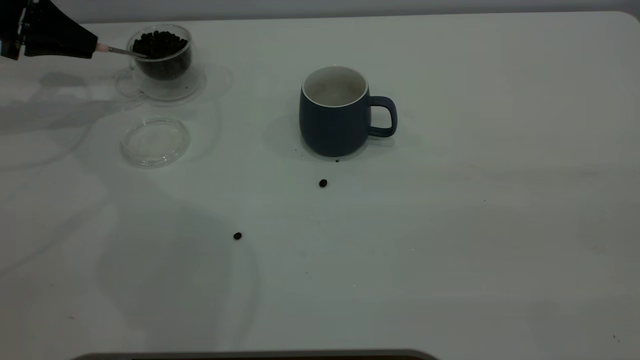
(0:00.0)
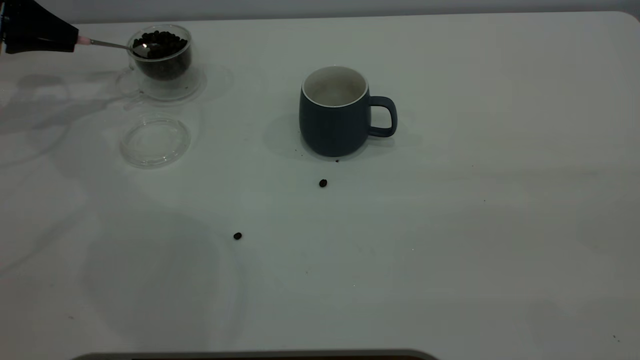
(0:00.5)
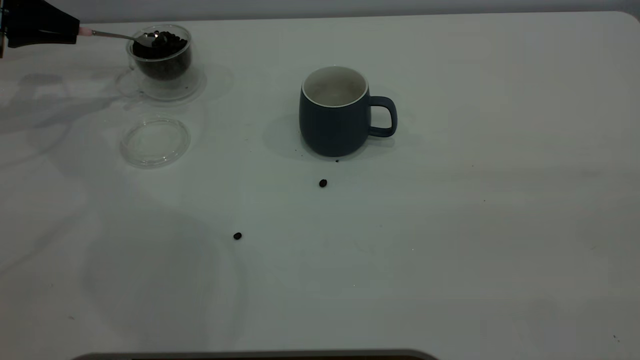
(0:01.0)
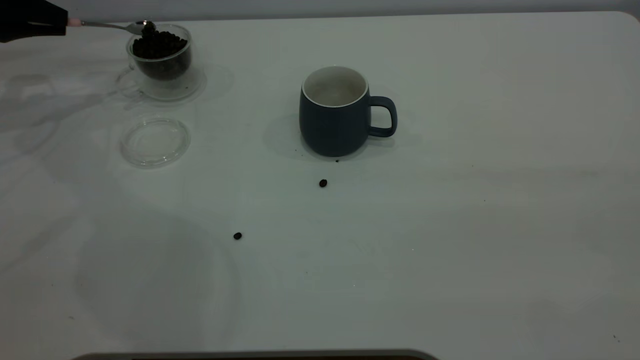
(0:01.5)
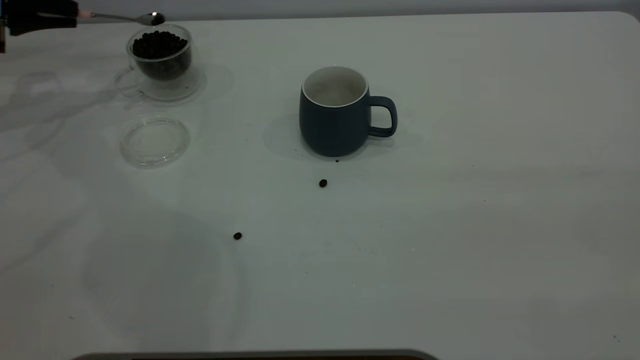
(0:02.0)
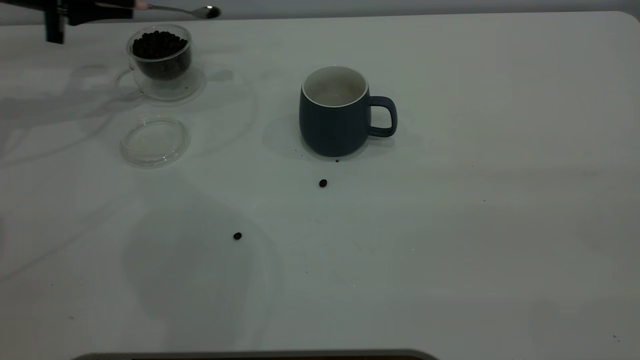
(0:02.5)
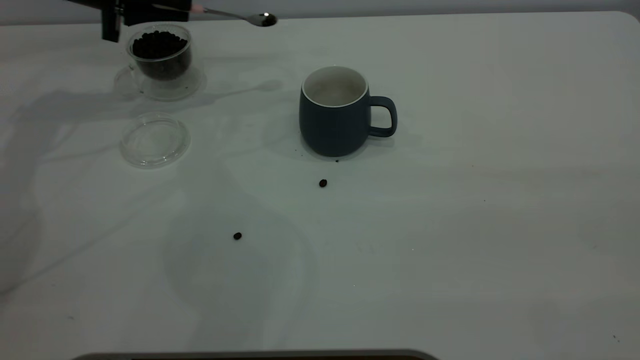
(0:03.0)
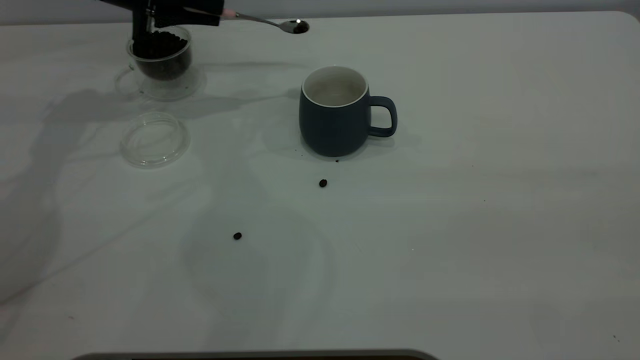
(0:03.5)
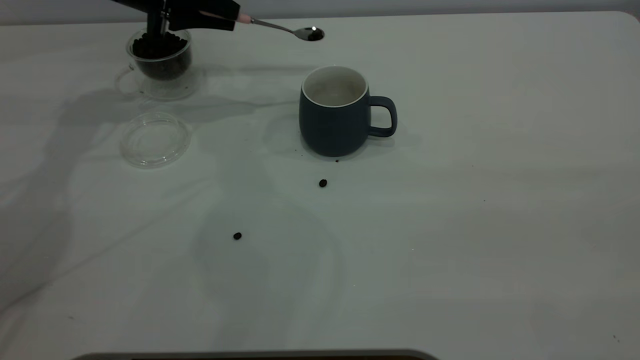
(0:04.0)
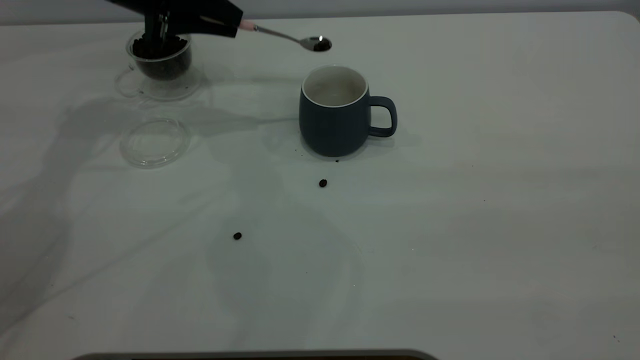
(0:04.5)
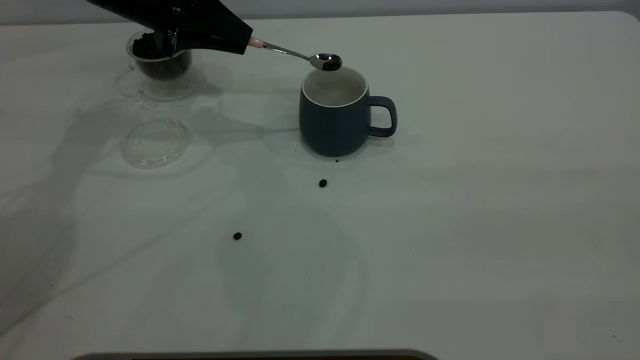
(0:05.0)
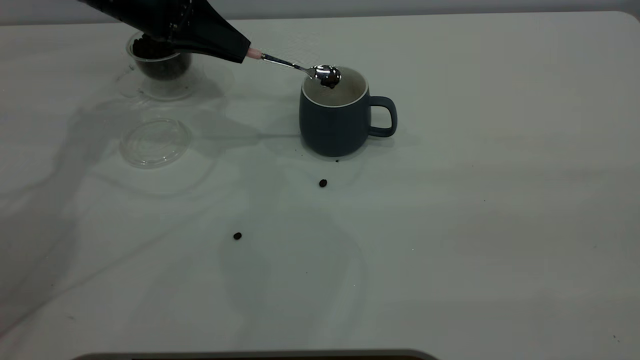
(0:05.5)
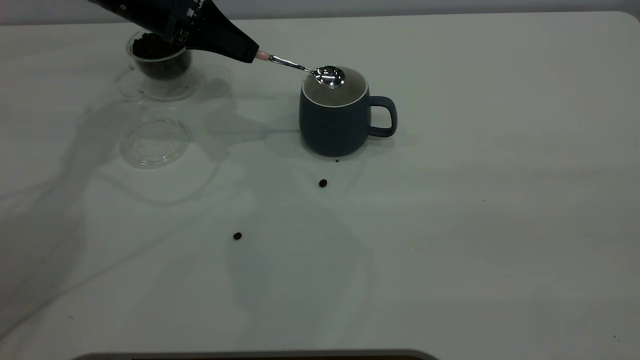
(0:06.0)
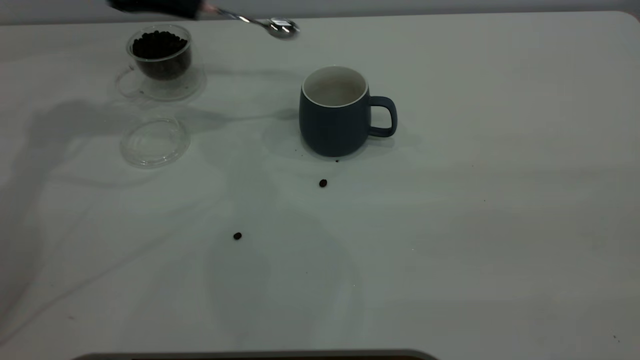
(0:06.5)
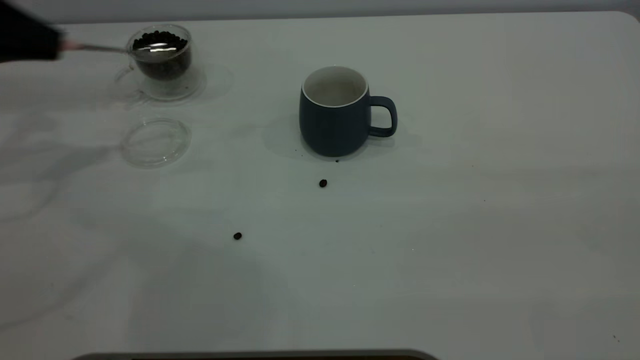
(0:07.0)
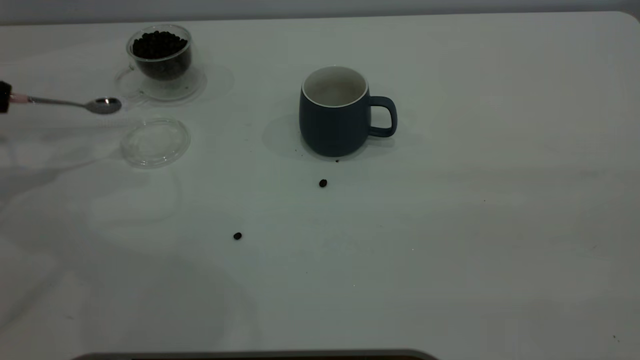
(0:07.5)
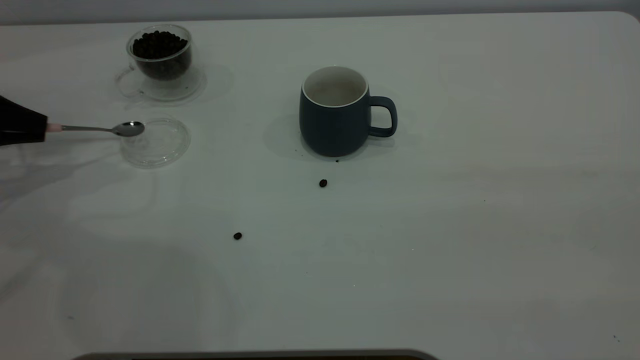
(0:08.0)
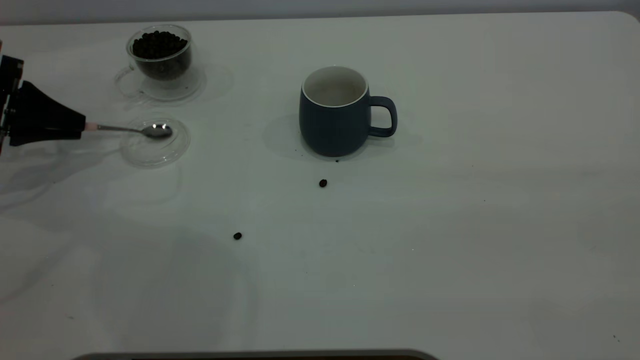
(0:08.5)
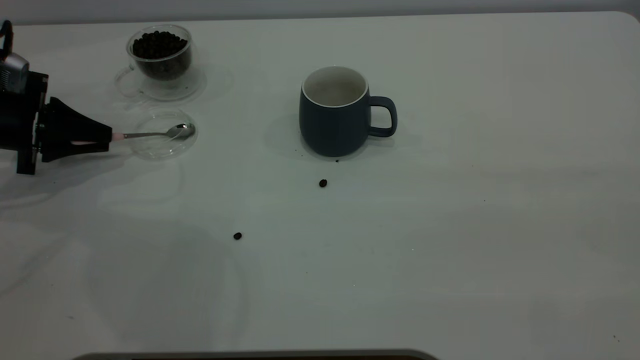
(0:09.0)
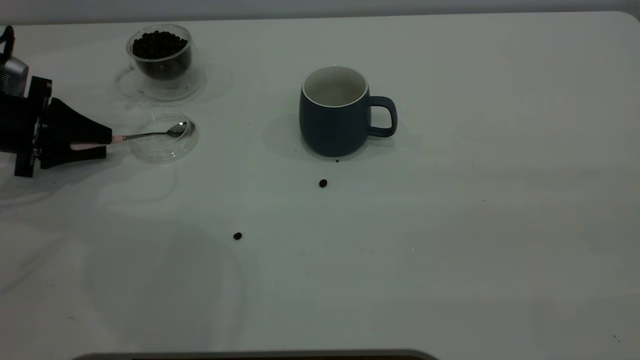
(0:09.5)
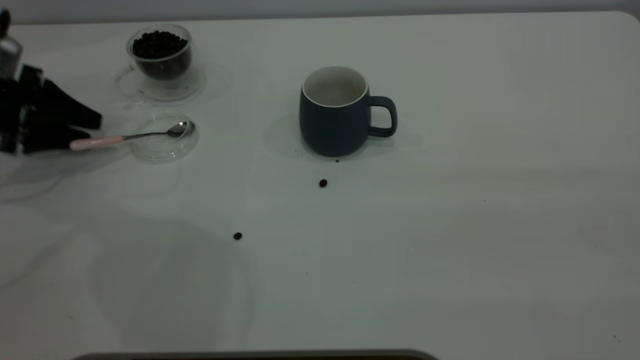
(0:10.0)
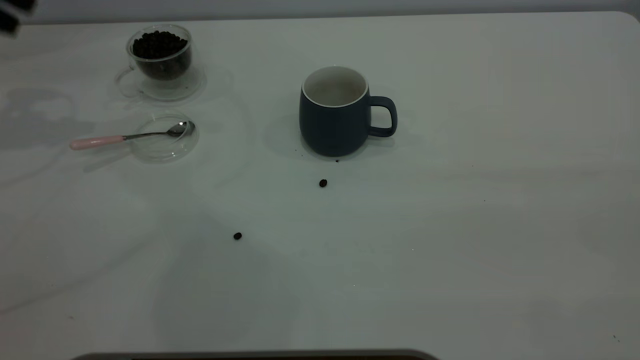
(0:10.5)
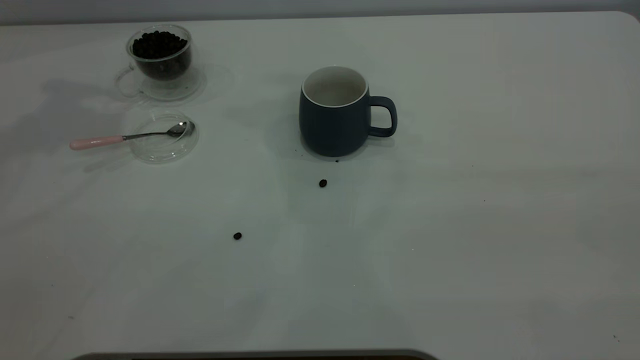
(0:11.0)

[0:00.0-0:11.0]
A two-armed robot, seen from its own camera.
Task of the whole recording: the right gripper place the grey cup in the center of the table, the left gripper take the pink spoon from the cup lid and scoop out the coffee beans from the coffee cup and put them into the grey cup, the left gripper put the spoon back into the cup lid.
Step, 0:00.0 to 0:06.0: Scoop a spoonful of beans into the cup.
Step, 0:06.5 to 0:10.0: Place the spoon back in its original place.
0:02.0 to 0:03.5: The left gripper shifts some 15 cm to the right.
0:03.5 to 0:05.5: The left gripper changes place by about 5 cm.
0:05.5 to 0:07.5: The left gripper heads to the left and backward, covering approximately 25 cm.
0:07.5 to 0:09.0: The left gripper shifts some 10 cm downward and to the right.
0:09.0 to 0:11.0: The left gripper travels upward by approximately 40 cm, and opens.

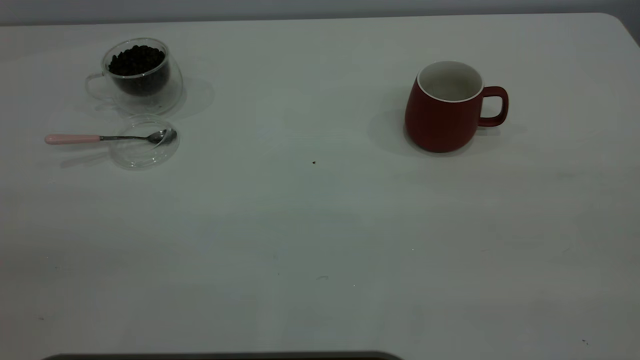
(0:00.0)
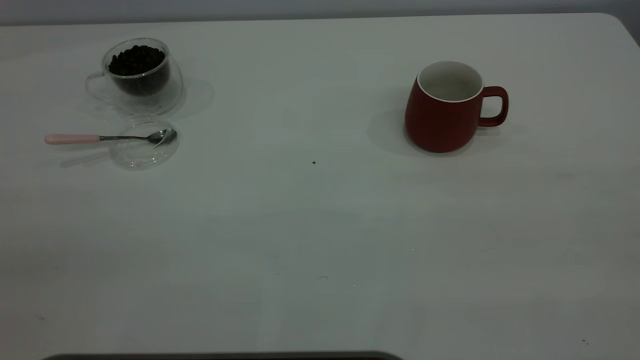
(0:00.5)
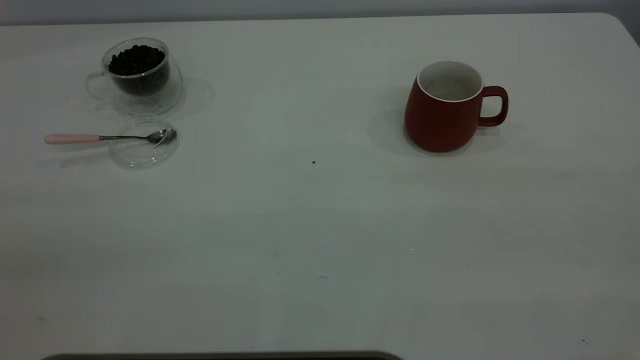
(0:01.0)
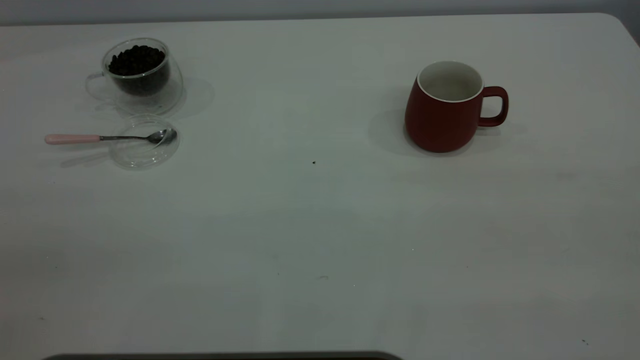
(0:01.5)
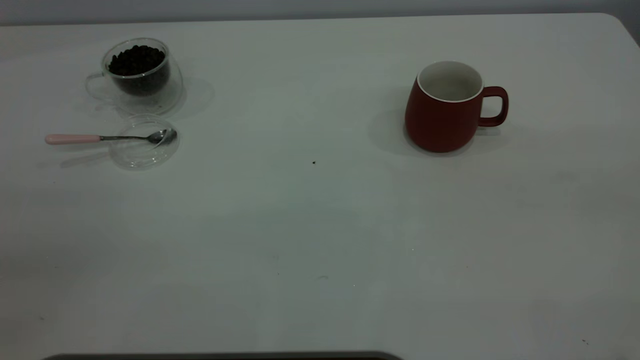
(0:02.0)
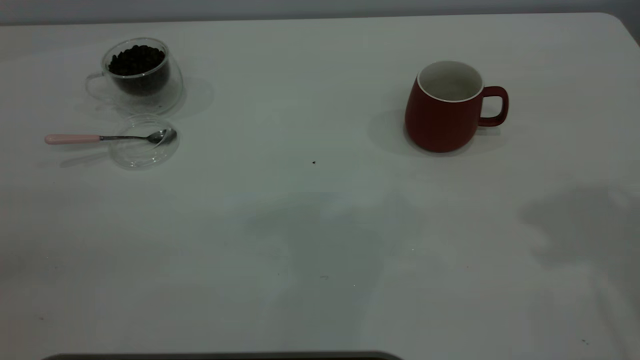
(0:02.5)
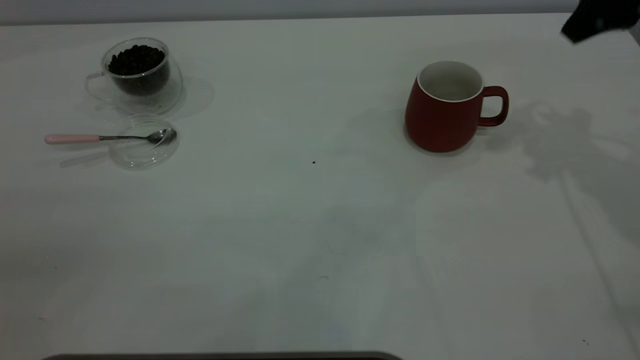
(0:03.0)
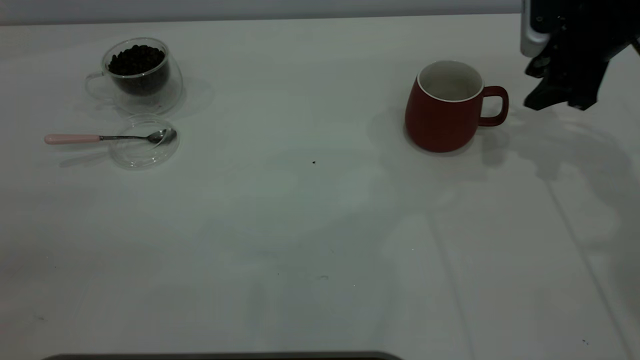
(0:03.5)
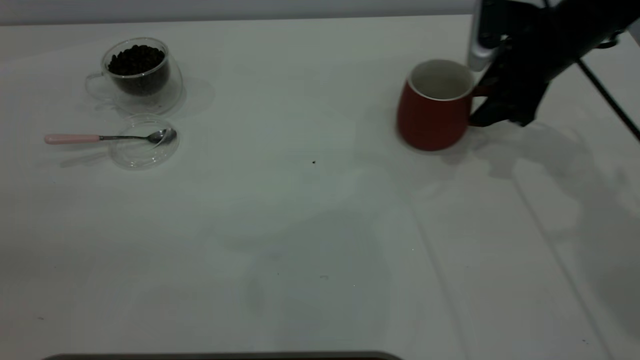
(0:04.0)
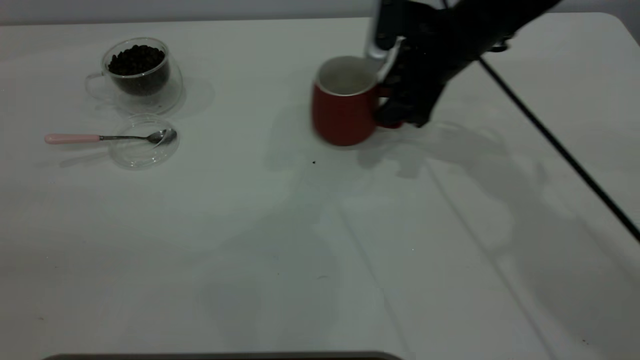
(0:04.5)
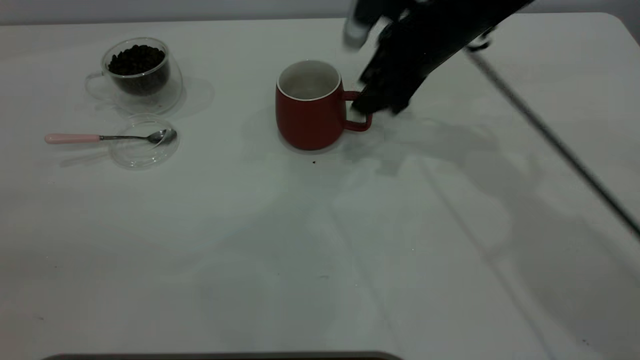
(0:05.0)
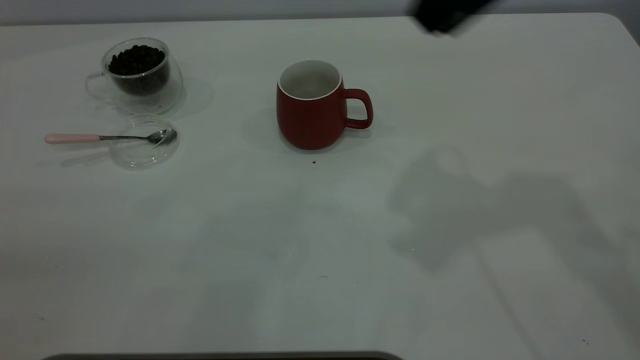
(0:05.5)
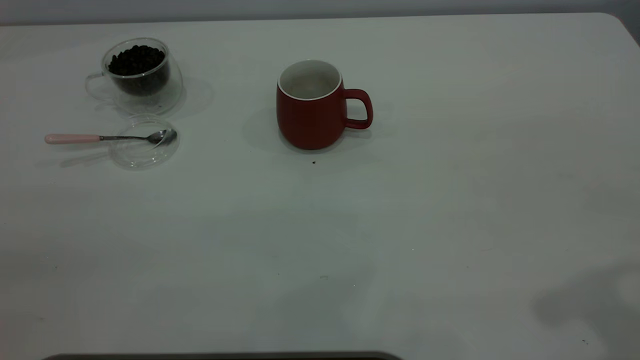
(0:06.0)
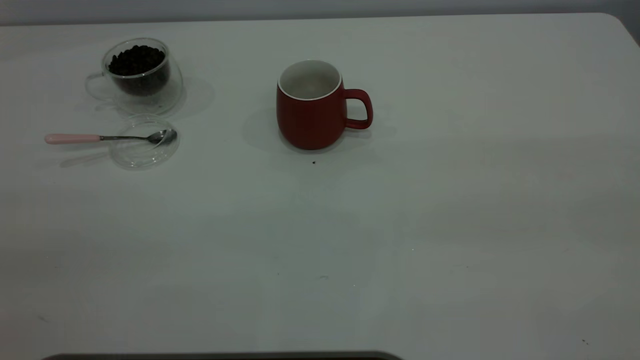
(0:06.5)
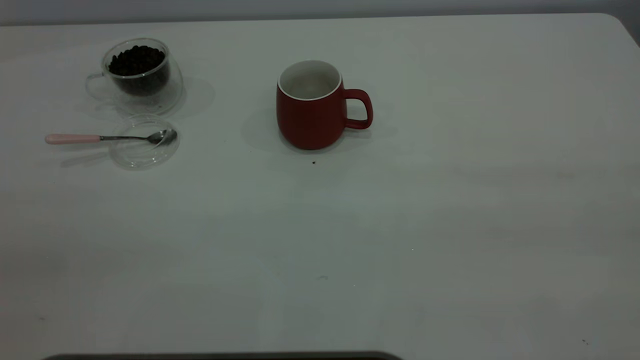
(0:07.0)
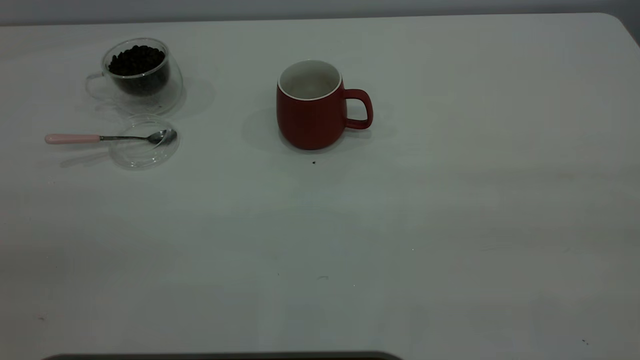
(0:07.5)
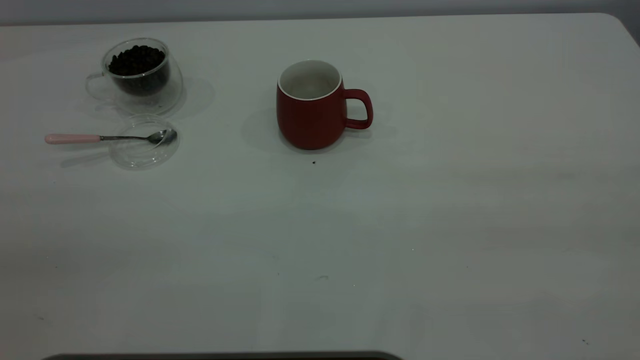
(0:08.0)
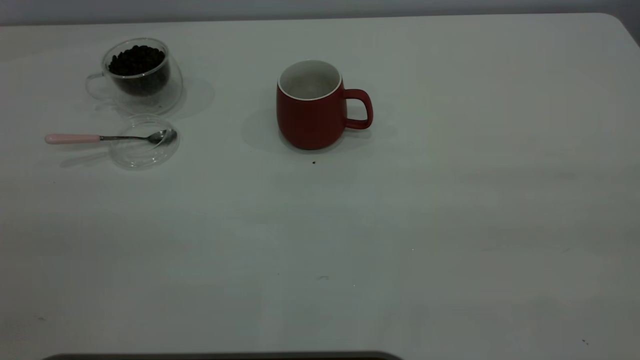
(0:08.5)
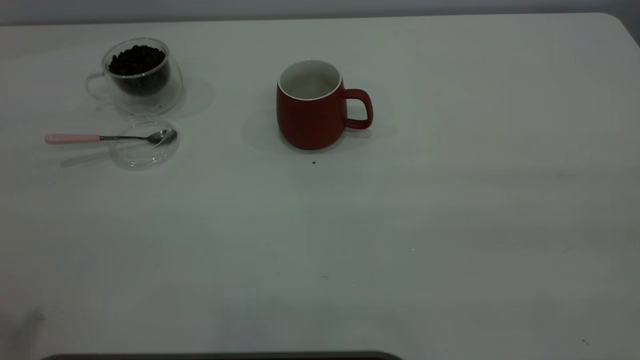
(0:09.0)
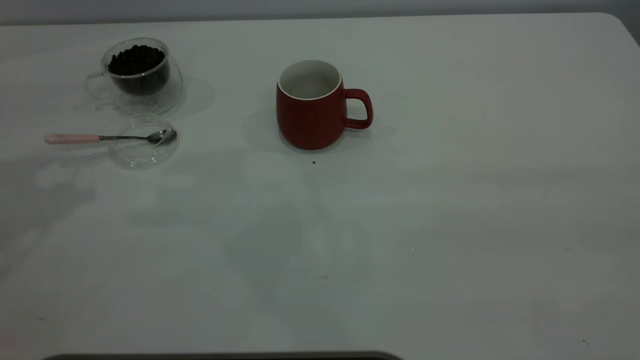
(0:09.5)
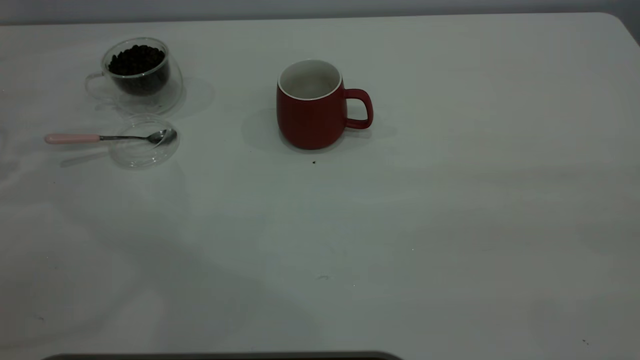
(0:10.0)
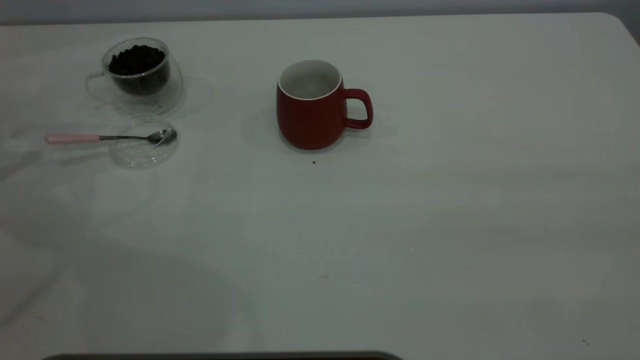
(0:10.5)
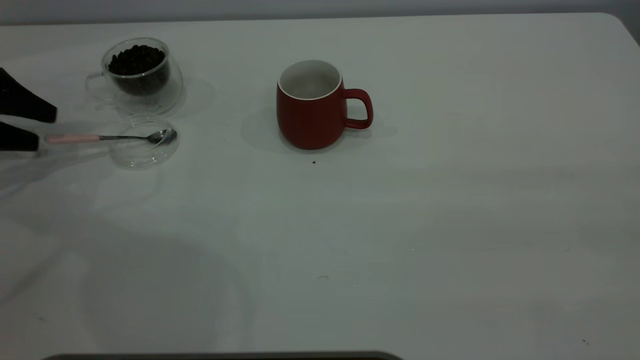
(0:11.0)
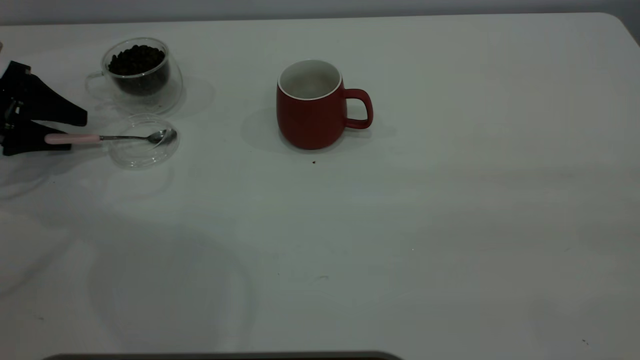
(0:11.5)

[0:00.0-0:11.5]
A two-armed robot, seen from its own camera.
Task of the whole recording: the right gripper place the red cup in the center of the table, the left gripper take the pink spoon from the cup lid and scoop out the coffee beans from the coffee cup and put them into the red cup, the left gripper put the spoon back into the cup lid.
Step, 0:00.0 to 0:05.0: Move the cup to the center of view.
0:02.0 to 0:04.0: The right gripper heads forward and downward, covering some 40 cm.
0:04.0 to 0:06.0: The right gripper heads backward and upward, covering approximately 35 cm.
0:09.5 to 0:11.5: The left gripper goes about 20 cm downward.
